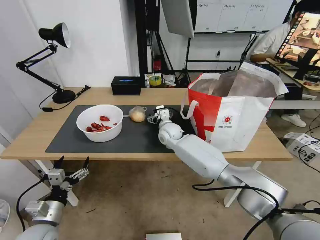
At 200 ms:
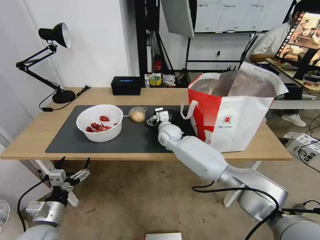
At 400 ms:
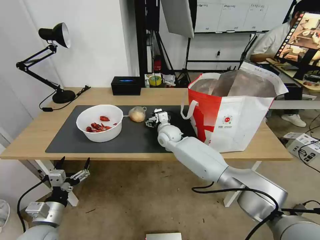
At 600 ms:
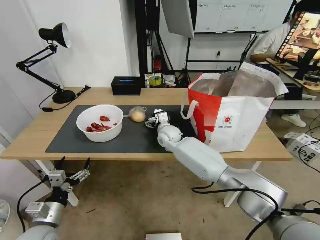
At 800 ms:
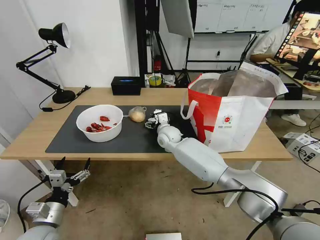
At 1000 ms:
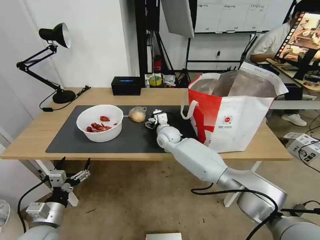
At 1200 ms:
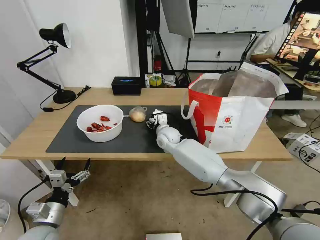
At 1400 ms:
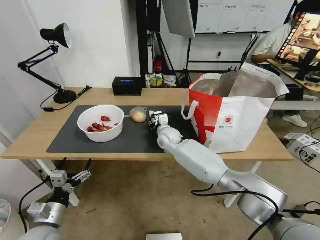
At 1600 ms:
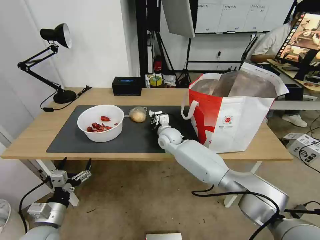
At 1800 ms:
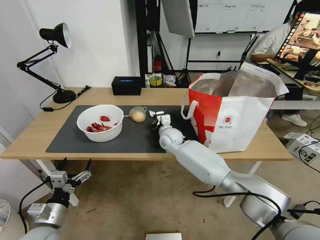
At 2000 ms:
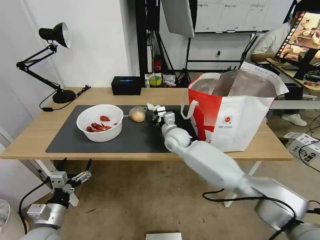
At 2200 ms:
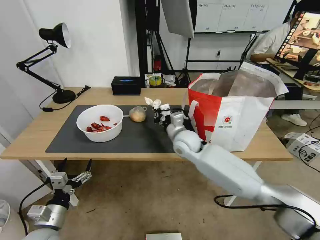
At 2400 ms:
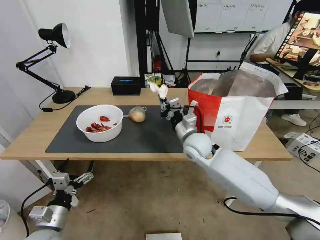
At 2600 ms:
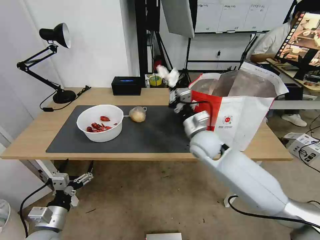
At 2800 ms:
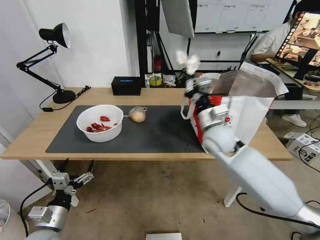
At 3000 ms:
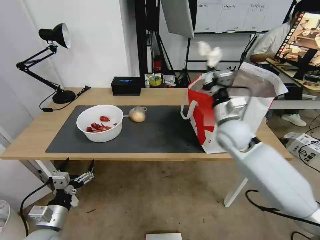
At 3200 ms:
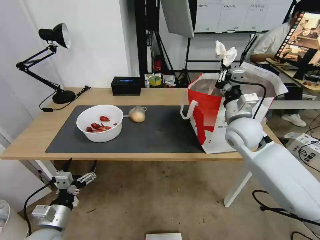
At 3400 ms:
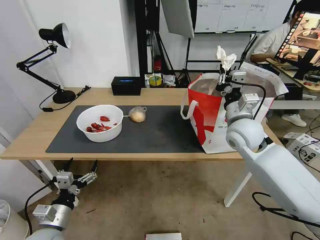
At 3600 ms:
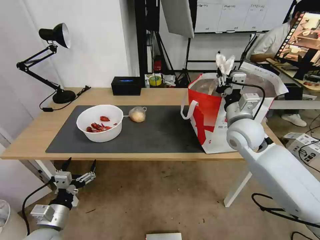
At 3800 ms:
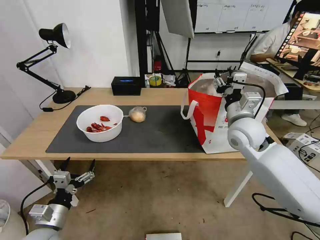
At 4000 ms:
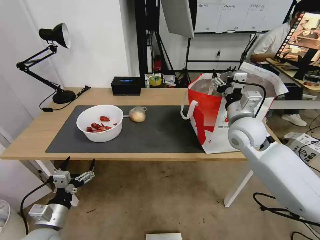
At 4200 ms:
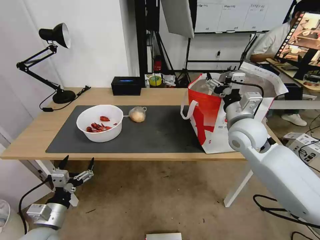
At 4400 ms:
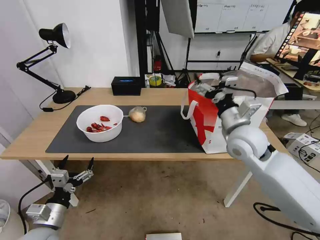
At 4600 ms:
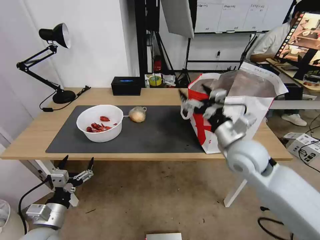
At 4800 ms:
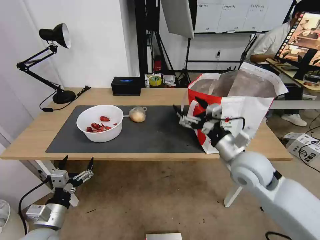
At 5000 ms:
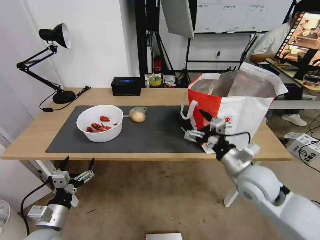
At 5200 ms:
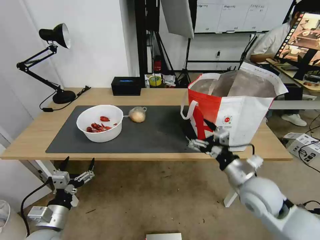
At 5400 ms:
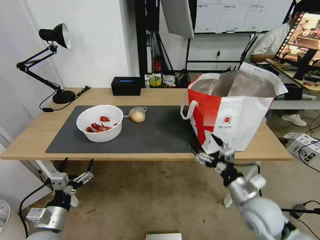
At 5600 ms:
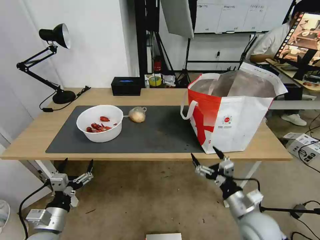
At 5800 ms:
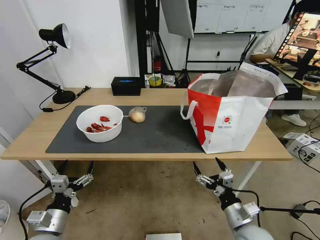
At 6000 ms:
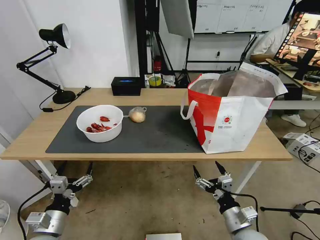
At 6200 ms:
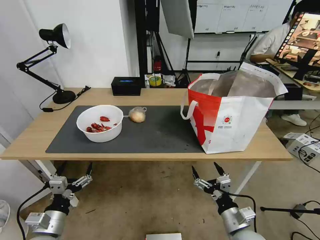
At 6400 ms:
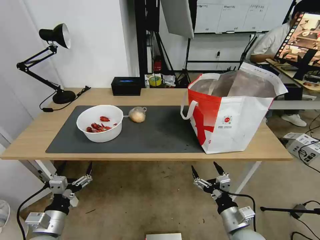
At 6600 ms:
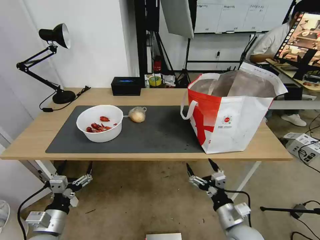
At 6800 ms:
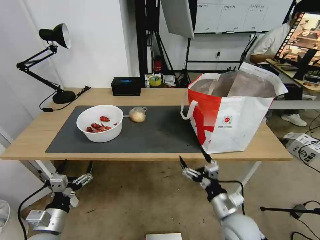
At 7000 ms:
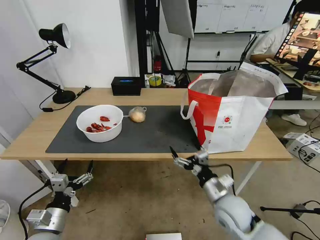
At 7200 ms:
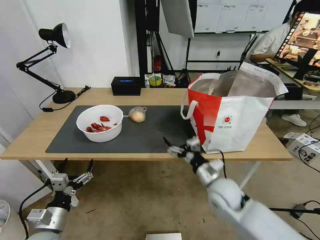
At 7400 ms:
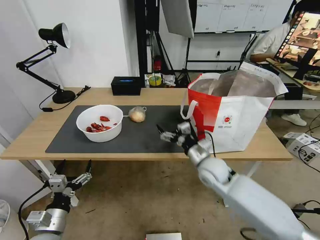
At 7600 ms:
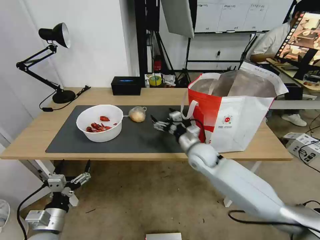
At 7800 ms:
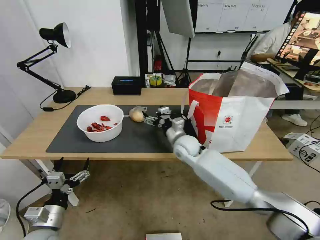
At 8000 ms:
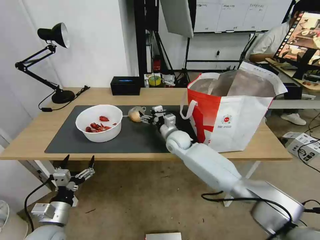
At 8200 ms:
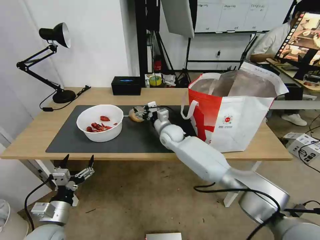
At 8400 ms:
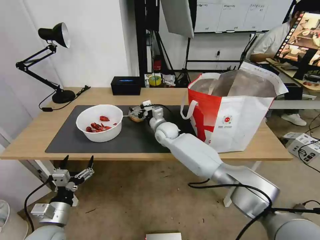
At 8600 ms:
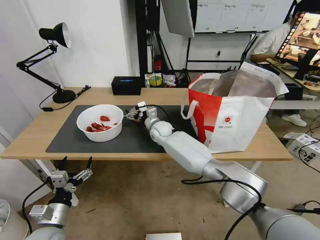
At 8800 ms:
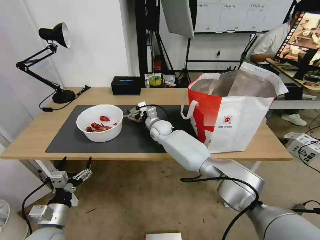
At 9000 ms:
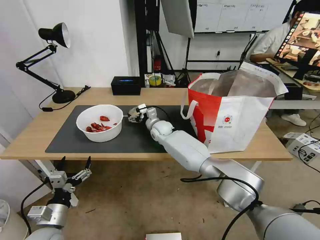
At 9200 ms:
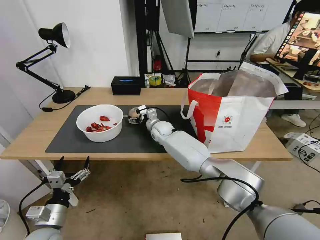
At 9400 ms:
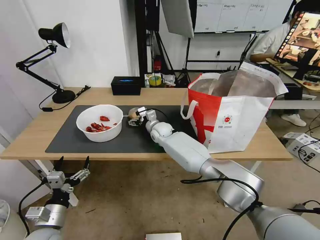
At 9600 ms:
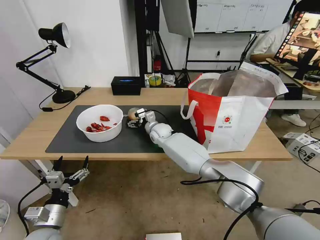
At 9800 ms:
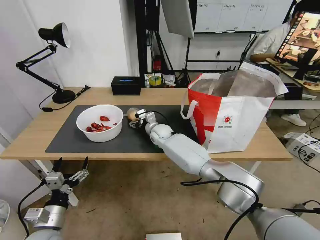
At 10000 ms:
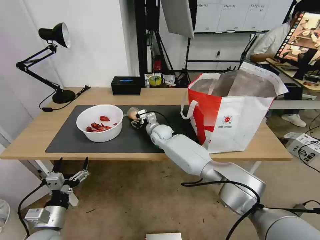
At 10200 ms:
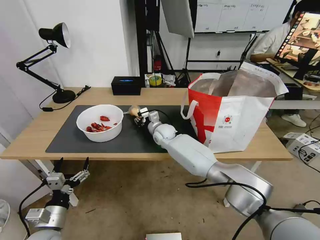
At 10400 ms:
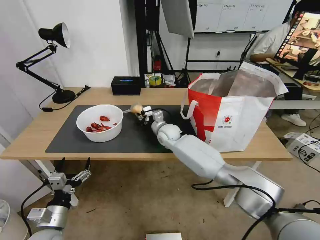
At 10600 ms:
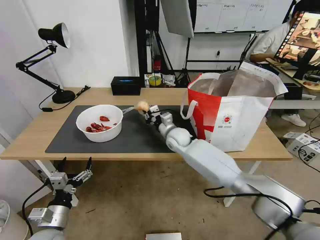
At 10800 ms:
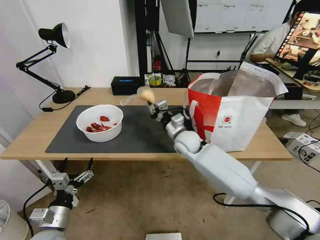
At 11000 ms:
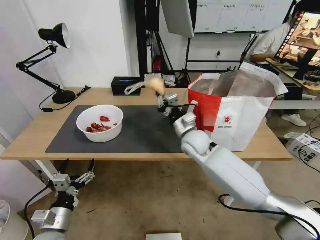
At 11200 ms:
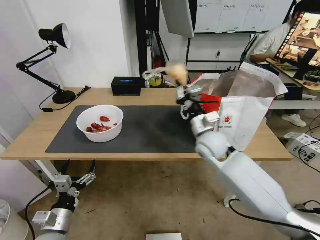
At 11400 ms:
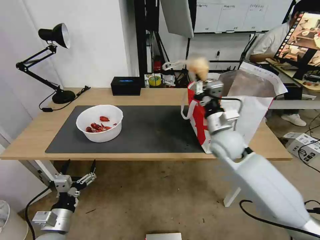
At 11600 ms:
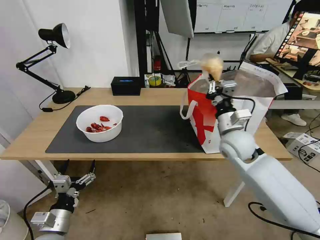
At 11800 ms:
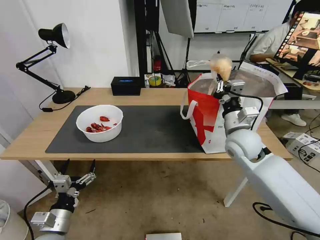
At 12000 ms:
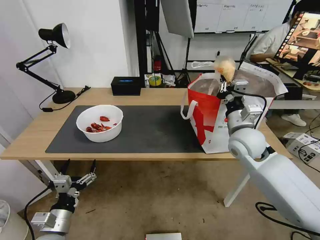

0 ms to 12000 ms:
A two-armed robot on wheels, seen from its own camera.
Task of the whole recording: Pick up the trash from the table and place it into the takeout bag.
0 ms to 1600 ms: The right gripper closes.
1600 ms to 3000 ms: The right gripper moves to the right, upward and backward, some 25 cm.
3000 ms to 4400 ms: The right gripper ends up approximately 5 cm from where it was, and opens its fingers.
4400 ms to 6000 ms: The right gripper moves downward and backward, roughly 30 cm.
6000 ms to 7600 ms: The right gripper travels forward and to the left by roughly 30 cm.
7600 ms to 9000 ms: The right gripper heads forward and to the left, covering roughly 20 cm.
9000 ms to 10400 ms: The right gripper closes its fingers.
10400 ms to 12000 ms: The right gripper shifts approximately 30 cm to the right, backward and upward.

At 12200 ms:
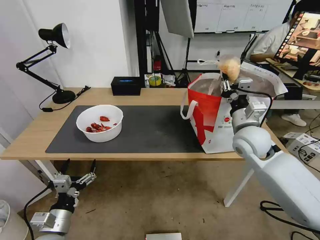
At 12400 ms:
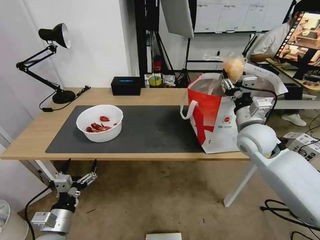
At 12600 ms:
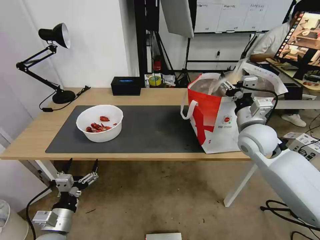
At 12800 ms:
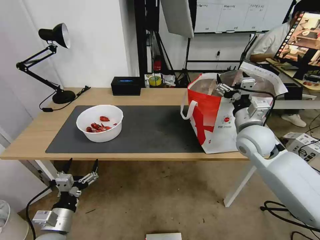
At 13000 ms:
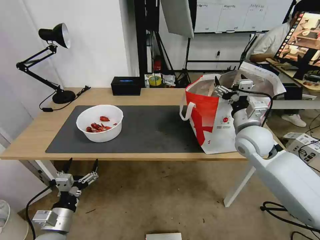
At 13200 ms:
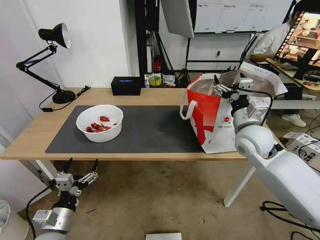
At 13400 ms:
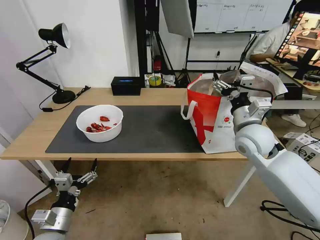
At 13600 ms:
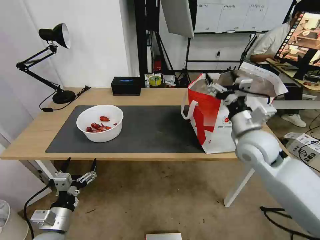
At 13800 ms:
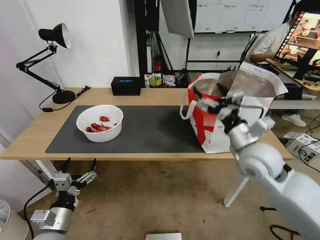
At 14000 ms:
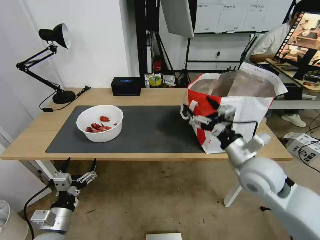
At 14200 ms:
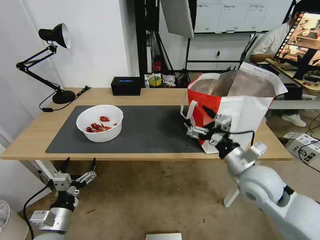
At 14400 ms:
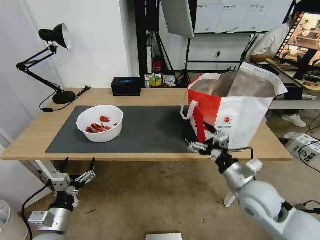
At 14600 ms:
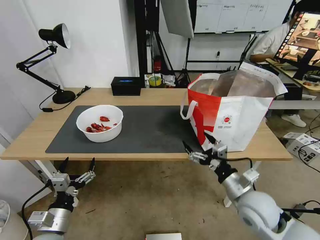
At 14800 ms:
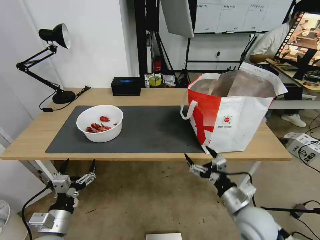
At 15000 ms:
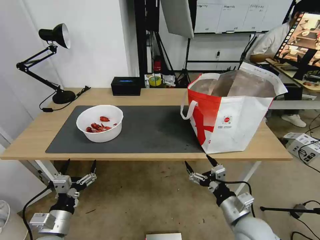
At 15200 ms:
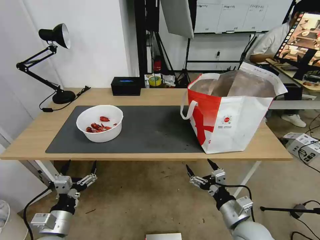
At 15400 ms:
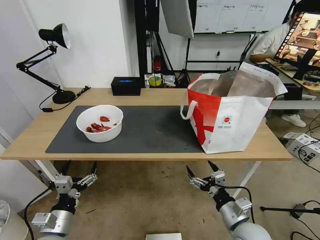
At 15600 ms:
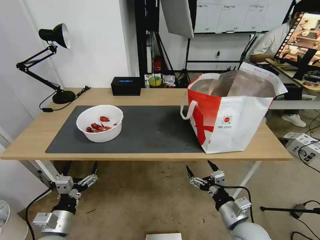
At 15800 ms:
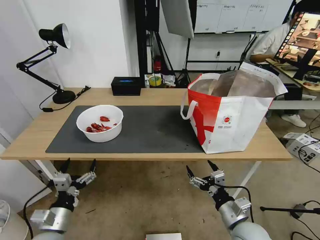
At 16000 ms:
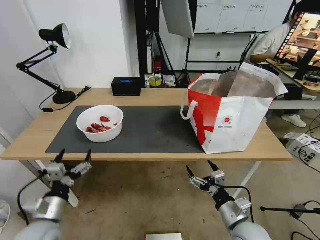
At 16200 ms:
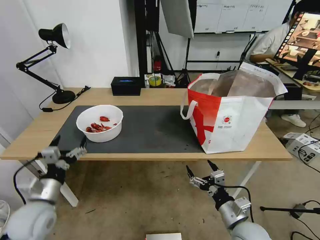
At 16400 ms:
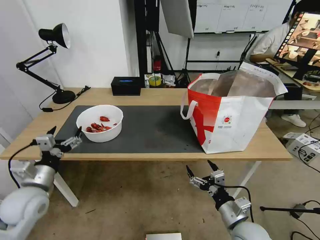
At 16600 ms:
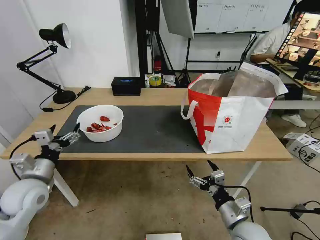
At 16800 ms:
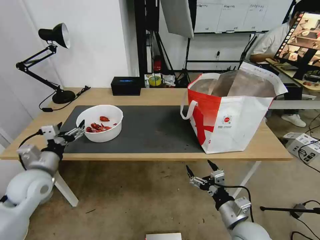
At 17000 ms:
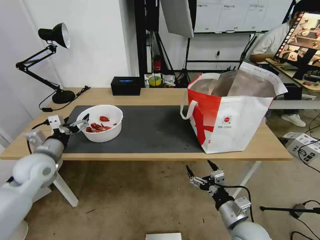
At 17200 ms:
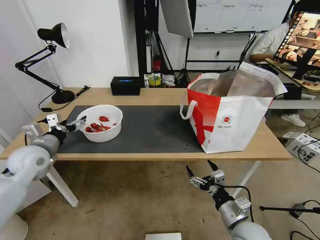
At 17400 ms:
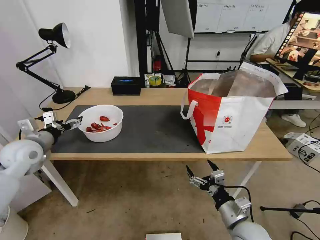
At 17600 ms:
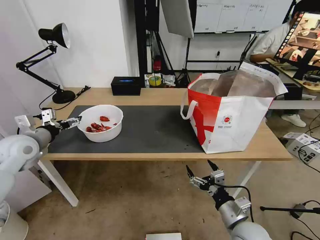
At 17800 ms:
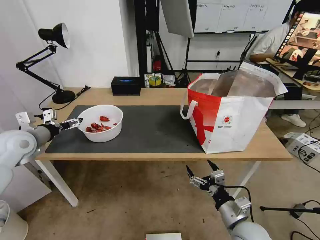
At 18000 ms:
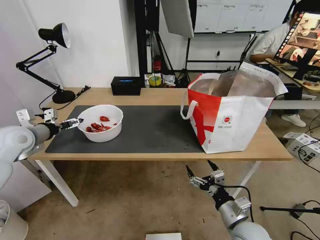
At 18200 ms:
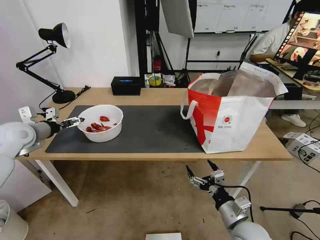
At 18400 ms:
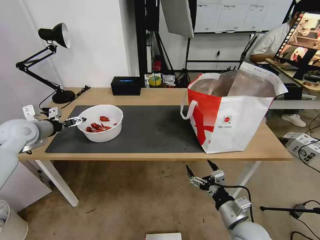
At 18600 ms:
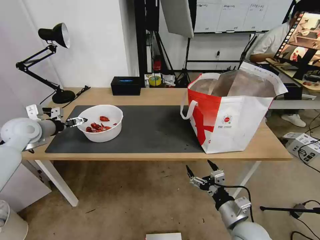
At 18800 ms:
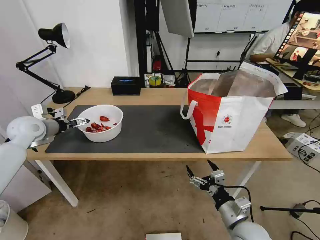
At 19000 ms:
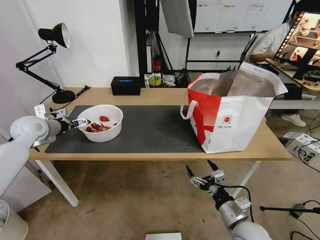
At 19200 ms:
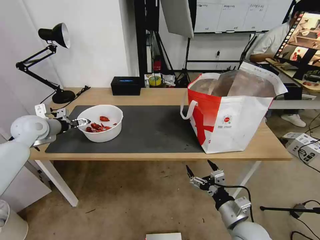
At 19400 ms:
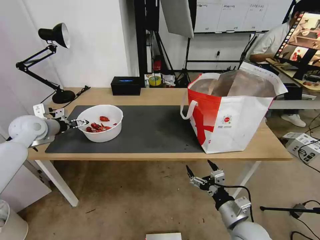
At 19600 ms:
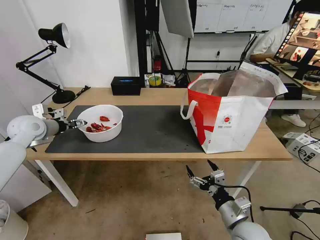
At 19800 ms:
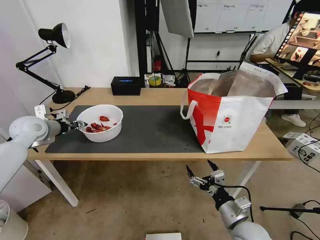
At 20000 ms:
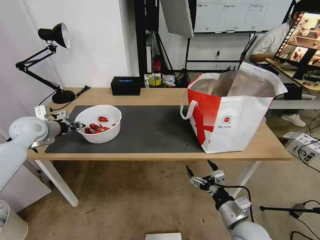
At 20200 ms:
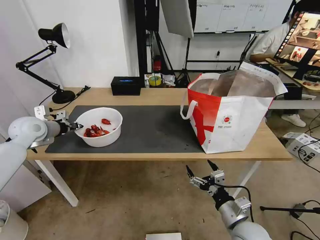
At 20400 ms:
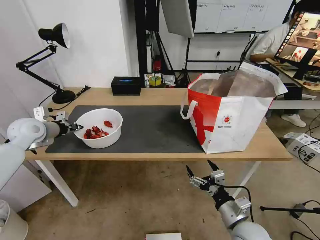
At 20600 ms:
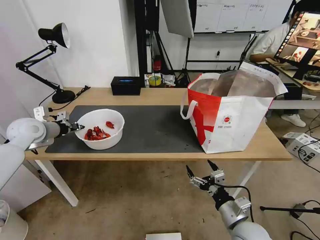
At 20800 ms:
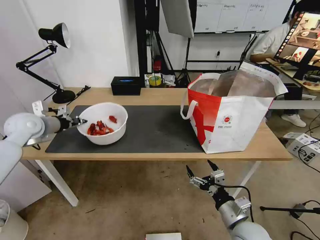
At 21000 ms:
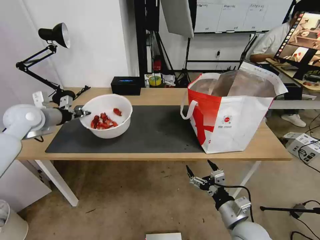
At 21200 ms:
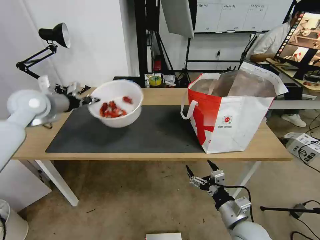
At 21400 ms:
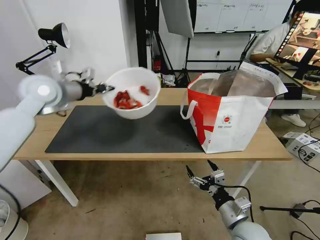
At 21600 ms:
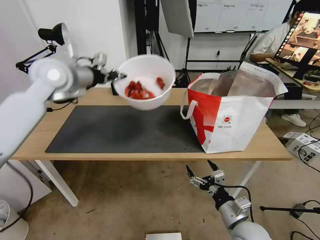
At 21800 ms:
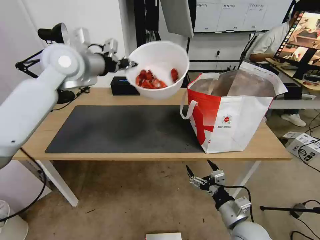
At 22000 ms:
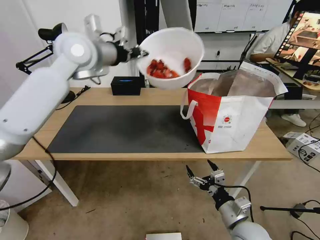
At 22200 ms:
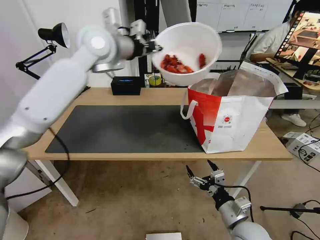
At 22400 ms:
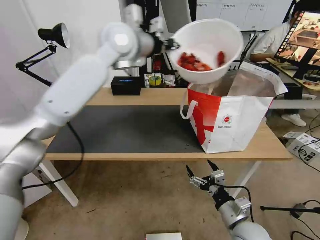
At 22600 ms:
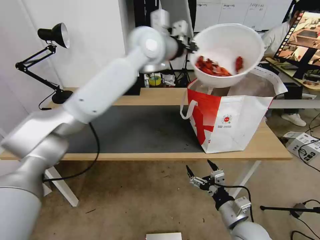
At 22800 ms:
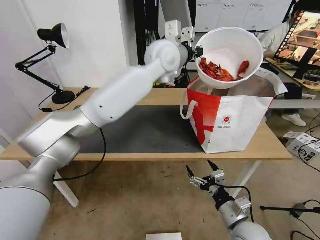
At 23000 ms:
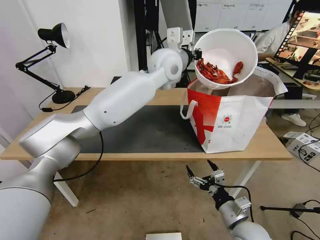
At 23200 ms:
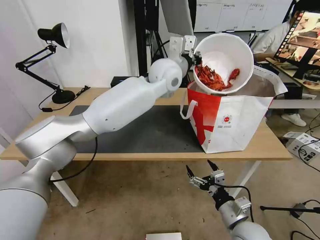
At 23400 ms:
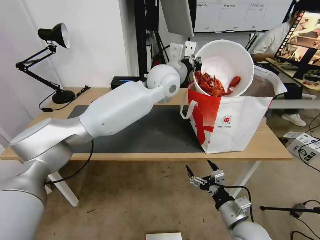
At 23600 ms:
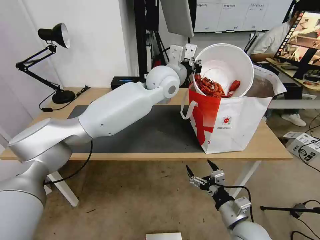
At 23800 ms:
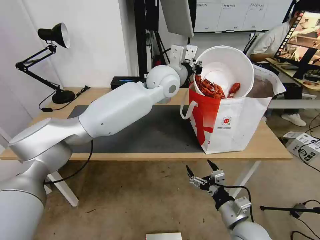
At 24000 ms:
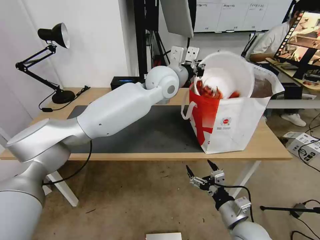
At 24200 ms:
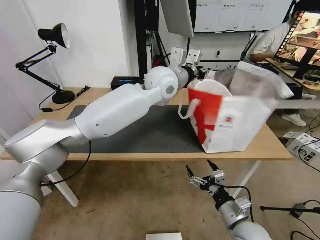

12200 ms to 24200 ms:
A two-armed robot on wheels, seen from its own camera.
Task of the whole recording: Pick up the trash from the table and place it into the takeout bag.
12200 ms to 13800 ms: The right gripper heads backward, covering roughly 5 cm, and opens.
13800 ms to 15200 ms: The right gripper goes some 25 cm downward and backward.
15200 ms to 16600 ms: The left gripper shifts roughly 15 cm forward, upward and to the left.
16600 ms to 18200 ms: The left gripper goes roughly 20 cm forward, upward and to the left.
18200 ms to 19800 ms: The left gripper closes its fingers.
19800 ms to 21200 ms: The left gripper travels upward by about 10 cm, and closes up.
21200 ms to 22600 ms: The left gripper heads to the right, covering some 35 cm.
22600 ms to 24200 ms: The left gripper heads downward, covering some 10 cm.
